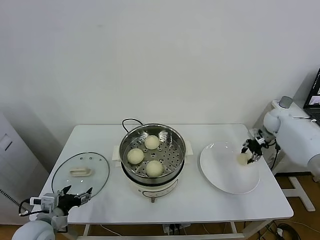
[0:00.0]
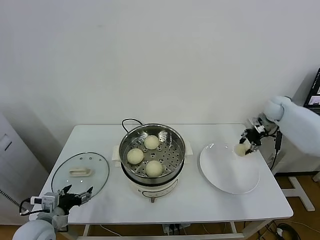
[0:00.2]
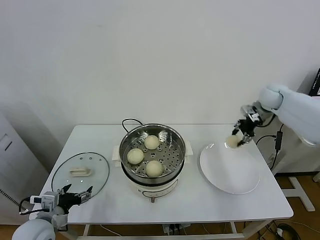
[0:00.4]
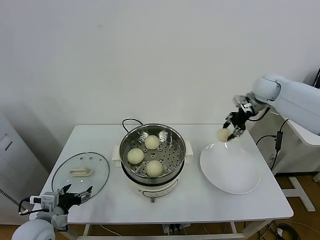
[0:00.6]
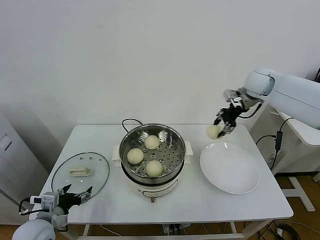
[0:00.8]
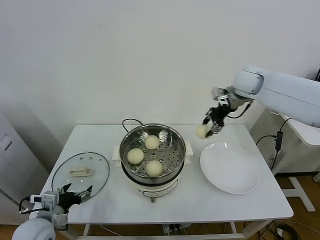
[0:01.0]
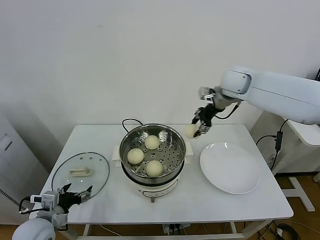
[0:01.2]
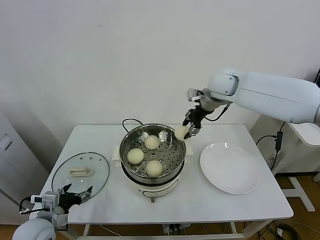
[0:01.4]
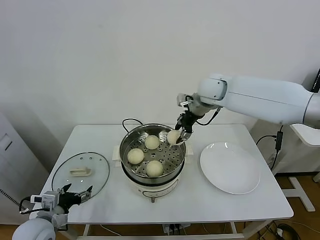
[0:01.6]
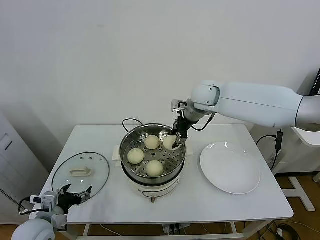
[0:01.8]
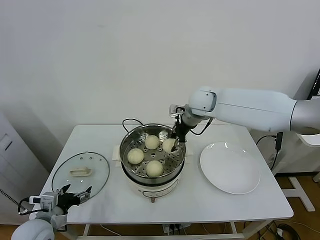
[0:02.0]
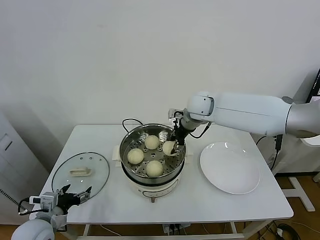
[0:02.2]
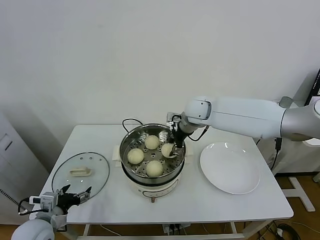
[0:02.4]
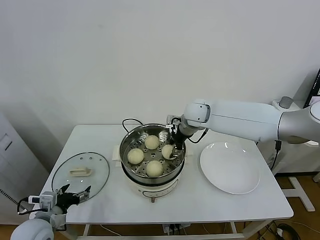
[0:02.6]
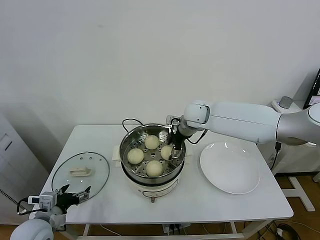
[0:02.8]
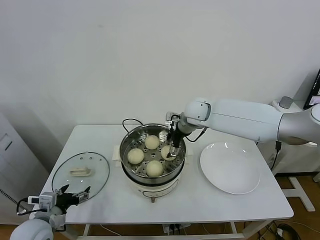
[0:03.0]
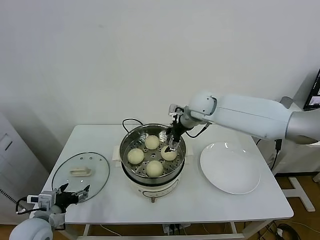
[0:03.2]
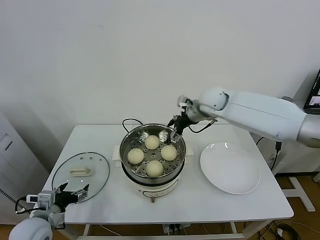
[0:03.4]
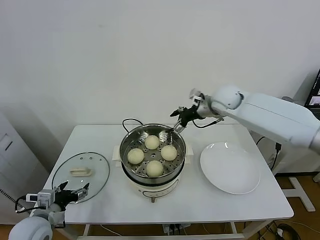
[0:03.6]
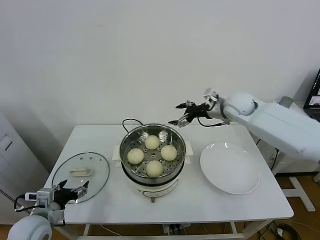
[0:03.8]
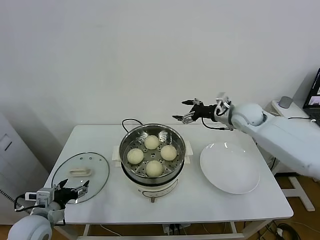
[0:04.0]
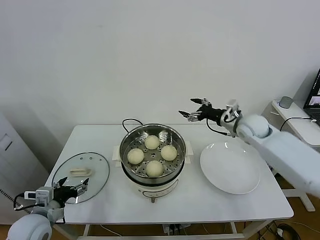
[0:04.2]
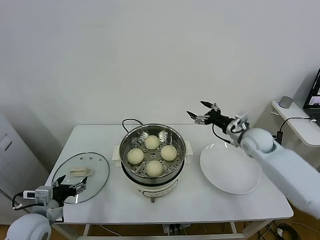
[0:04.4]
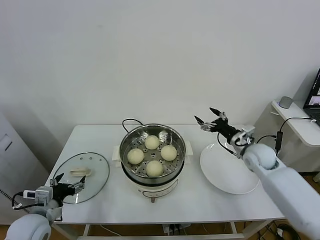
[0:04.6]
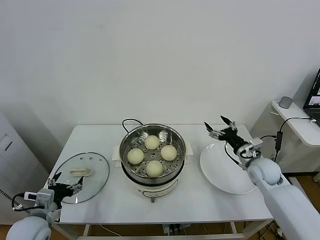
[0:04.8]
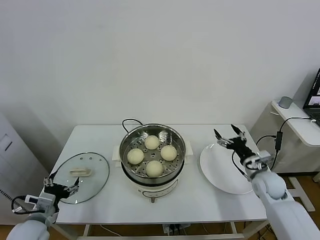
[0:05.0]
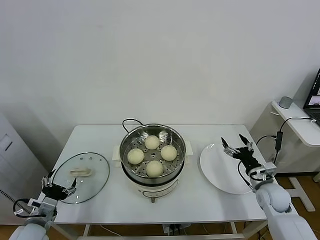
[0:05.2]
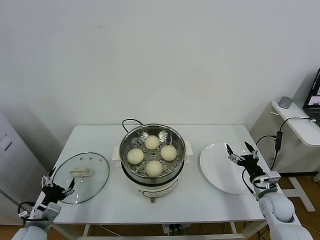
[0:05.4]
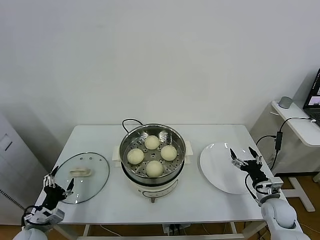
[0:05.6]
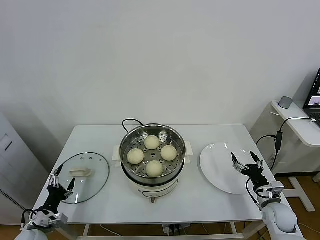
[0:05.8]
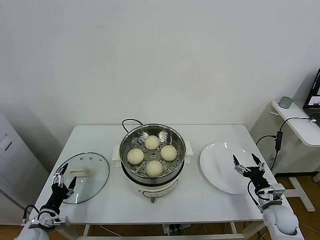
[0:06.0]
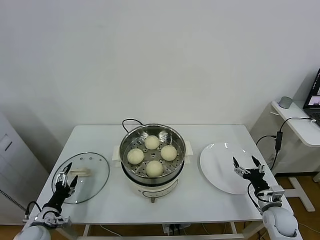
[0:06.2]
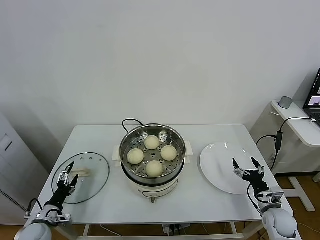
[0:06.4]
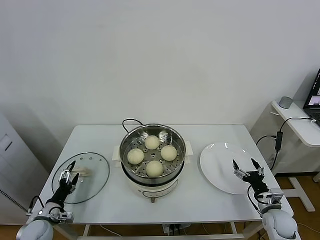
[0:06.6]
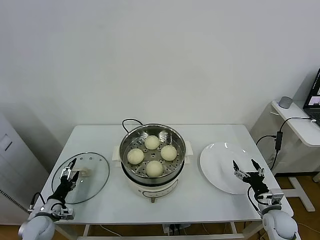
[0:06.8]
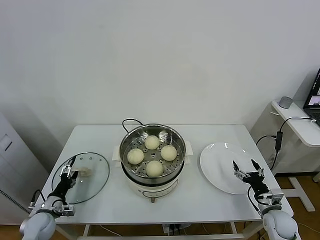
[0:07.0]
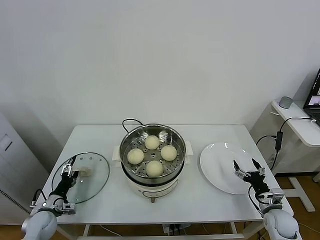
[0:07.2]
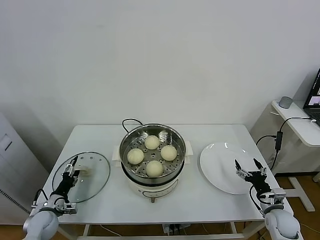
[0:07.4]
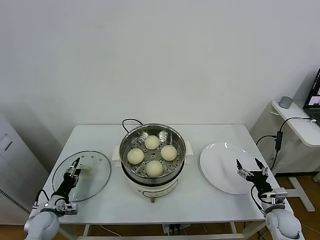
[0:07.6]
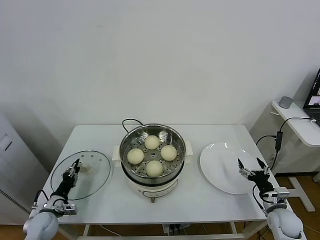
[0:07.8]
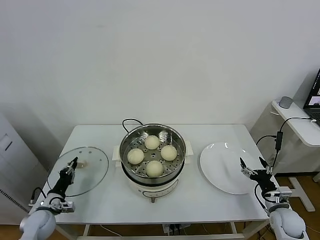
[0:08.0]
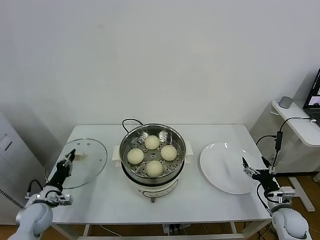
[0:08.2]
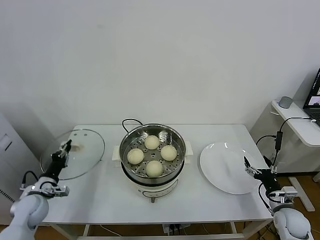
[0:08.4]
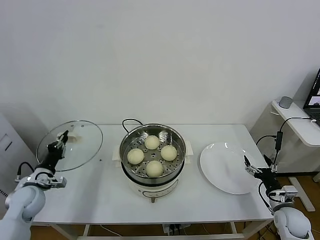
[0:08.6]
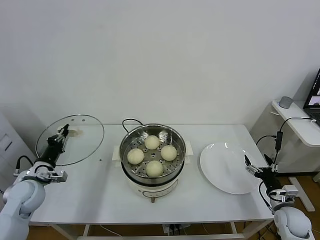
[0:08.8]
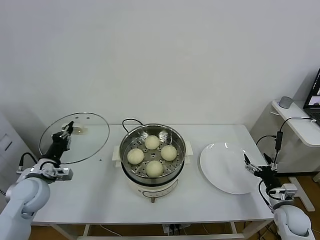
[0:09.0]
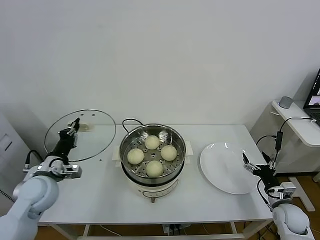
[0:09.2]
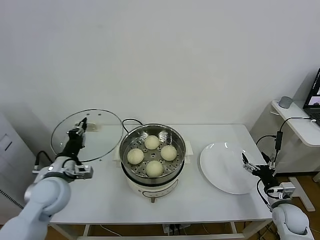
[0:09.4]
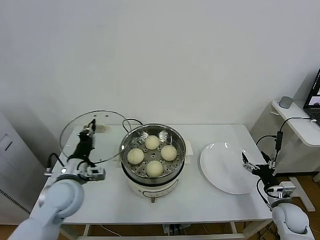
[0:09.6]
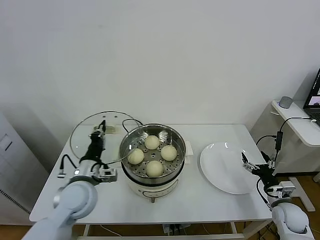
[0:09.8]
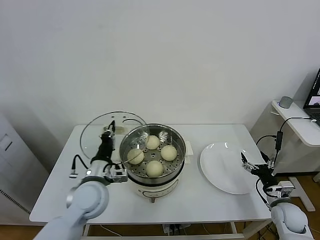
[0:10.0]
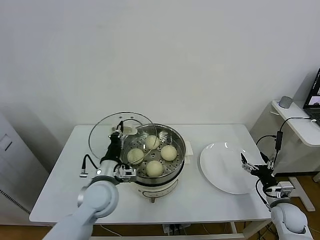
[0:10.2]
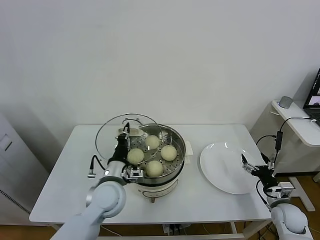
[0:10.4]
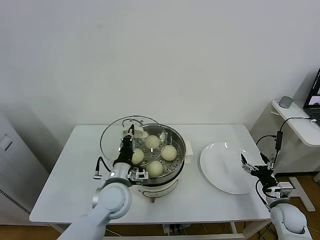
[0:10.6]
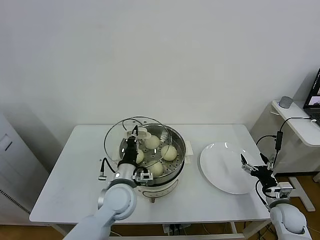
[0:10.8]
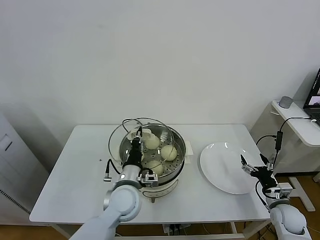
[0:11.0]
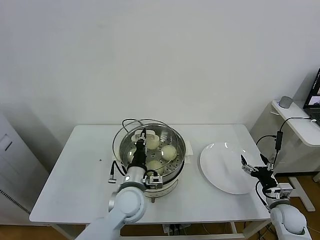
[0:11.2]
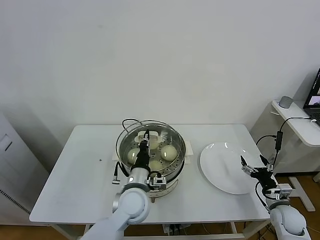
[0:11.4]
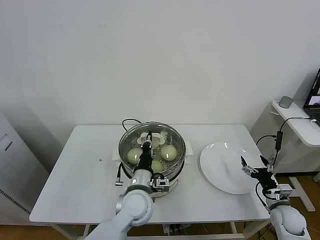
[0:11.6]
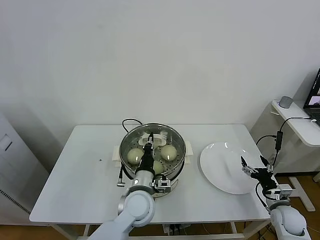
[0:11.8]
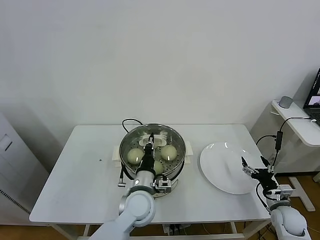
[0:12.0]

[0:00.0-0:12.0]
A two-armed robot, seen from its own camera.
Task of the whole recording: take steamed baozi put them in steamer.
Step, 0:00.0 to 0:03.0: Place the baozi on the steamer with right gripper.
Step, 0:03.4 to 0:08.0: Grasp the pot lid with left gripper.
0:00.0 to 0:01.6: The right gripper goes about 35 cm to the left and upward.
0:01.6 to 0:03.0: The right gripper moves downward, some 10 cm, and opens up.
0:03.0 to 0:04.4: The right gripper heads to the right and downward, covering some 25 cm.
0:04.4 to 0:06.0: The left gripper is displaced downward and to the left by some 10 cm. Meanwhile the right gripper travels downward, backward and to the right by roughly 30 cm.
0:06.0 to 0:07.6: The left gripper shifts about 5 cm forward, and closes up.
0:07.6 to 0:09.0: The left gripper moves upward, some 20 cm, and closes its fingers.
0:09.0 to 0:10.4: The left gripper is displaced to the right by some 25 cm.
0:10.4 to 0:12.0: The left gripper goes some 10 cm to the right.

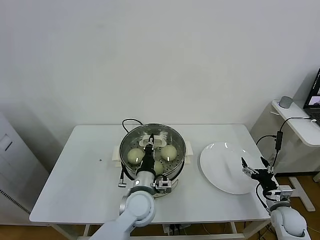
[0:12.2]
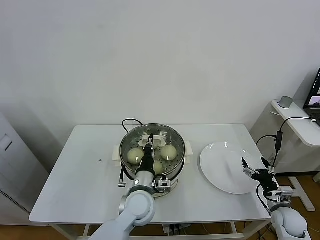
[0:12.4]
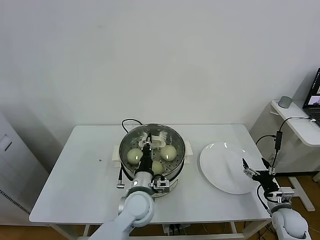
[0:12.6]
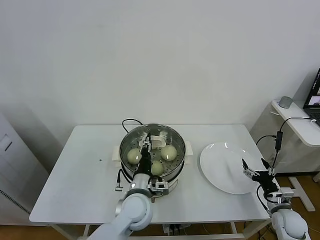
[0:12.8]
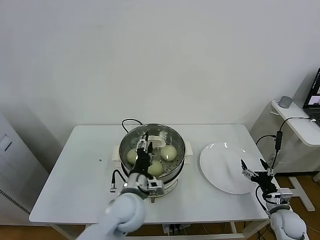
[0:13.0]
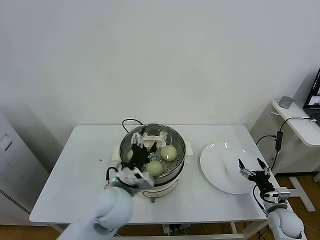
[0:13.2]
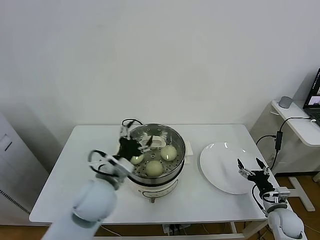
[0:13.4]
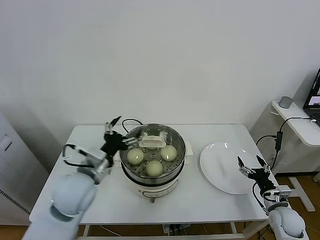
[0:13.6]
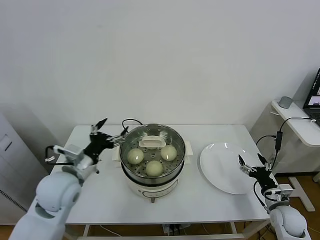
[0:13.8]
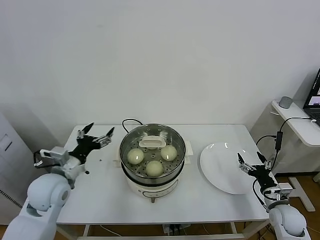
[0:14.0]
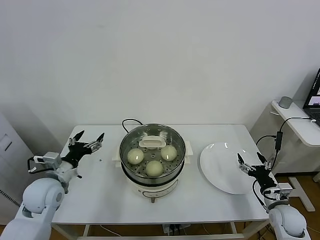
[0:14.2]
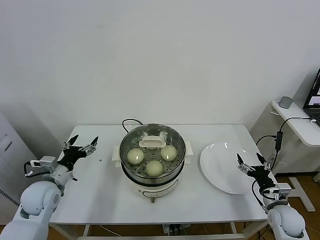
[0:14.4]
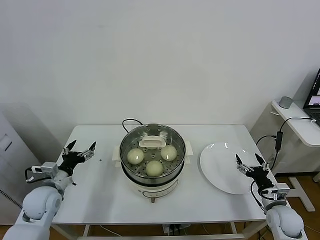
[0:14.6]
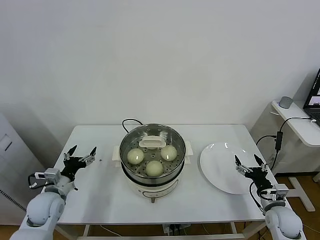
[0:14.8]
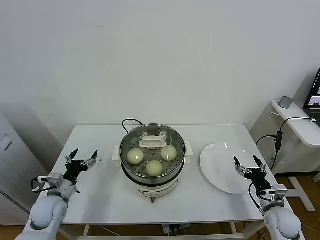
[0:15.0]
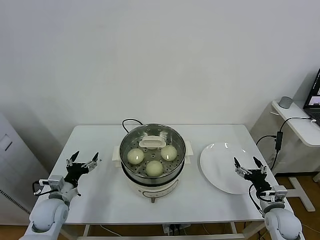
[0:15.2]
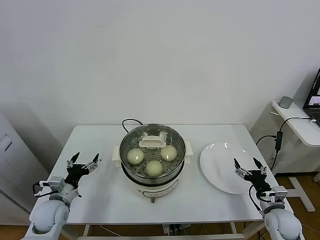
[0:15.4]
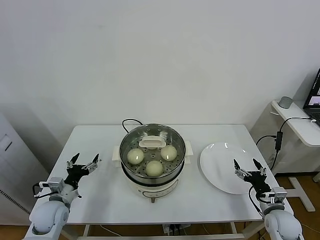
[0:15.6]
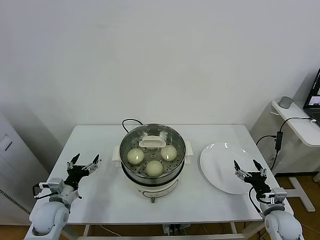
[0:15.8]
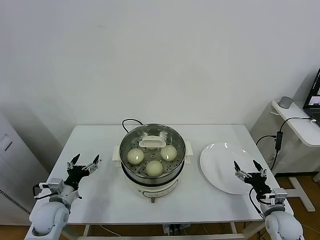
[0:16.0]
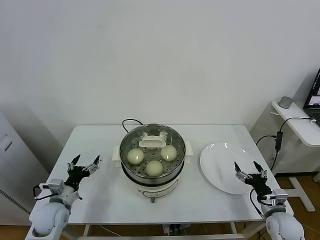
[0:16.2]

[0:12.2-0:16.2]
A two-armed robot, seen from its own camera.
Task of the whole recording: take steamed baozi put them in steamer.
0:12.2 to 0:13.6: The left gripper goes approximately 20 cm to the left and upward, and opens its fingers.
0:13.6 to 0:14.8: The left gripper goes roughly 20 cm to the left and downward.
0:14.8 to 0:16.2: The grippers move only a little.
